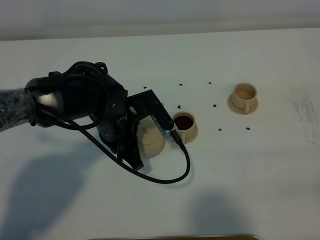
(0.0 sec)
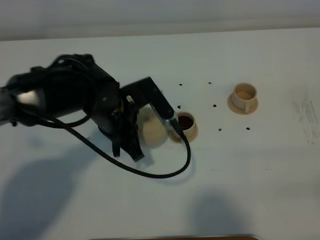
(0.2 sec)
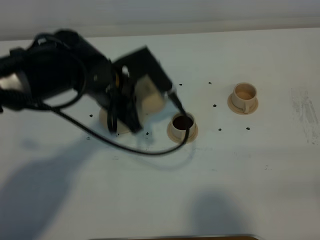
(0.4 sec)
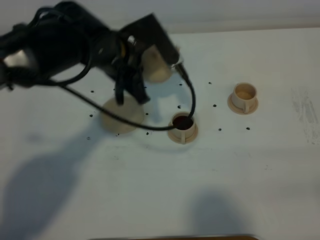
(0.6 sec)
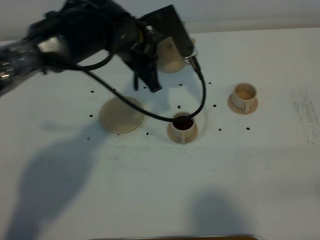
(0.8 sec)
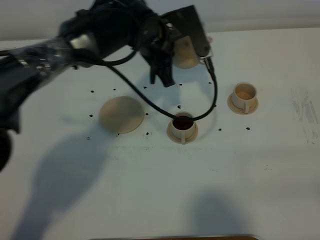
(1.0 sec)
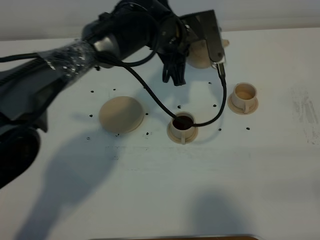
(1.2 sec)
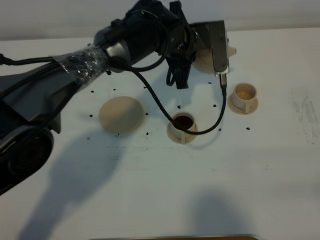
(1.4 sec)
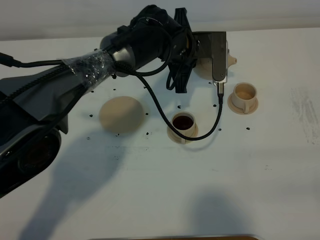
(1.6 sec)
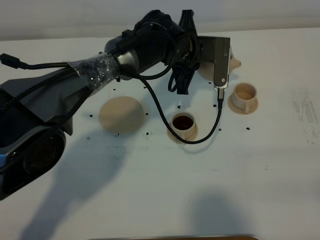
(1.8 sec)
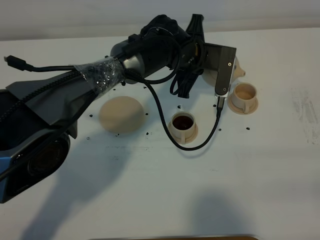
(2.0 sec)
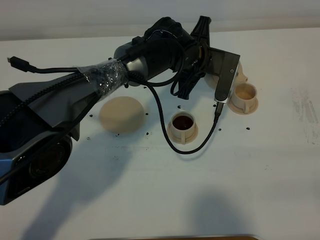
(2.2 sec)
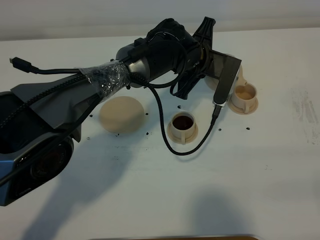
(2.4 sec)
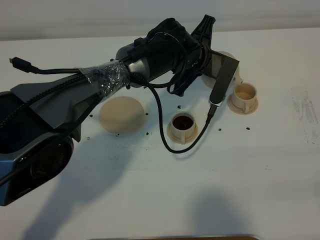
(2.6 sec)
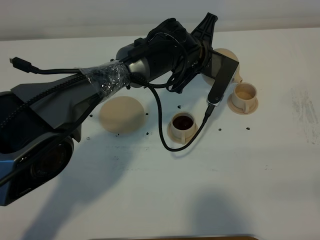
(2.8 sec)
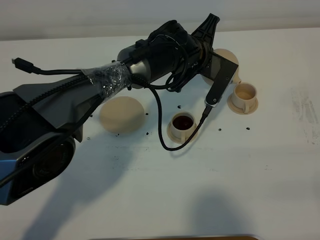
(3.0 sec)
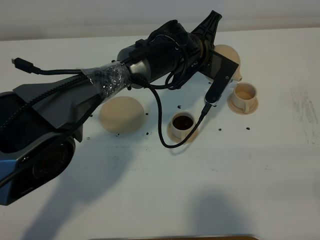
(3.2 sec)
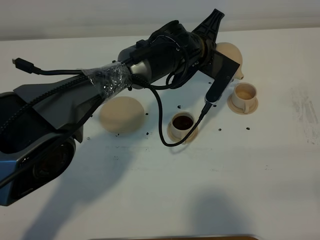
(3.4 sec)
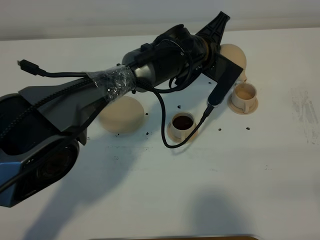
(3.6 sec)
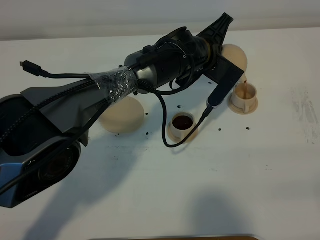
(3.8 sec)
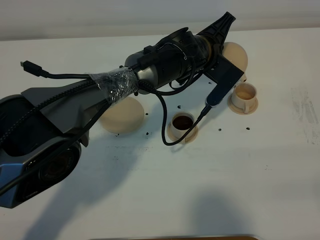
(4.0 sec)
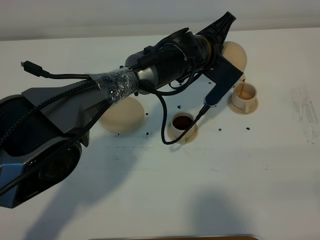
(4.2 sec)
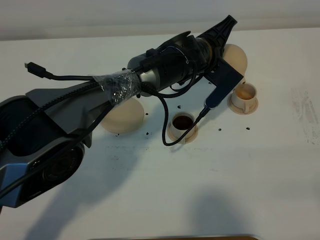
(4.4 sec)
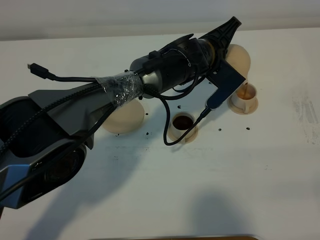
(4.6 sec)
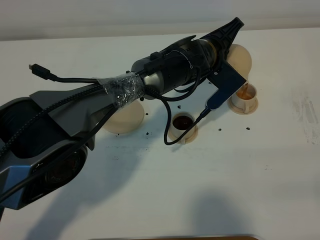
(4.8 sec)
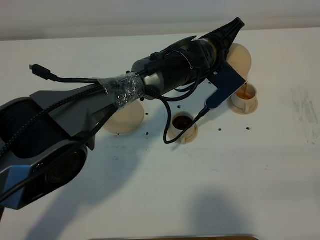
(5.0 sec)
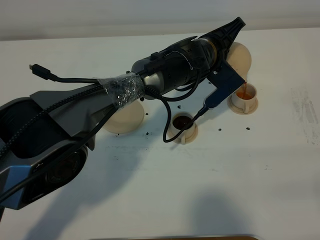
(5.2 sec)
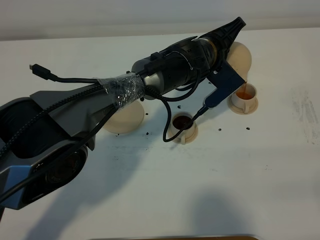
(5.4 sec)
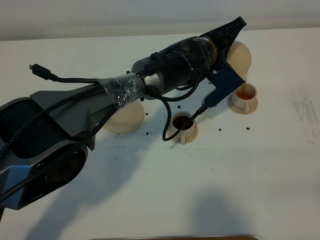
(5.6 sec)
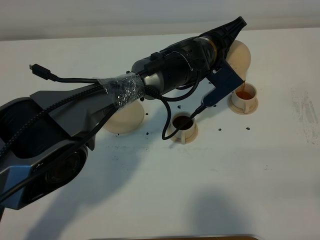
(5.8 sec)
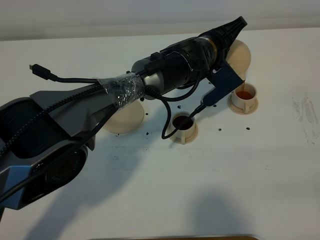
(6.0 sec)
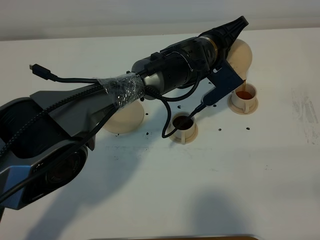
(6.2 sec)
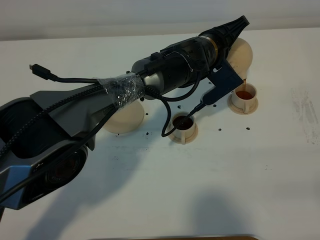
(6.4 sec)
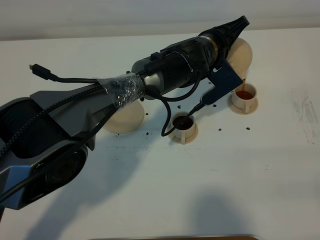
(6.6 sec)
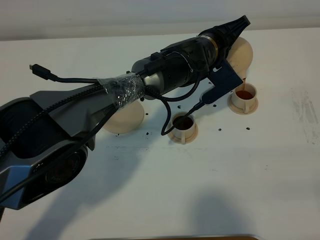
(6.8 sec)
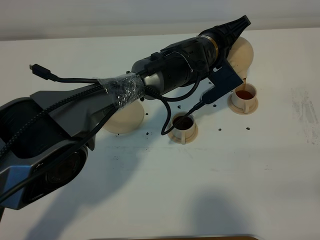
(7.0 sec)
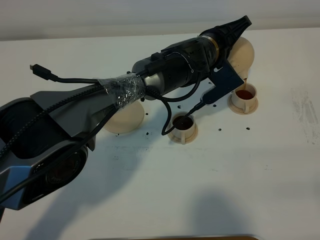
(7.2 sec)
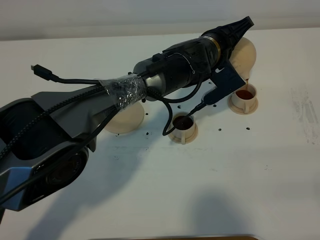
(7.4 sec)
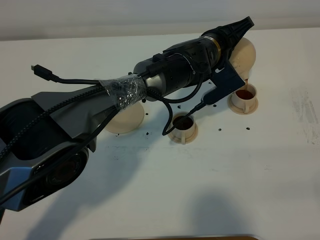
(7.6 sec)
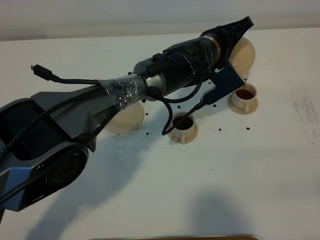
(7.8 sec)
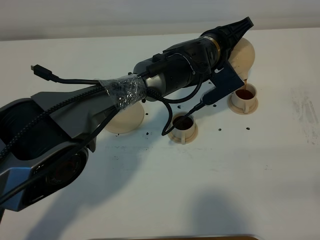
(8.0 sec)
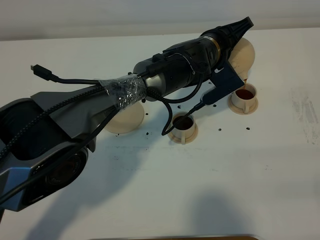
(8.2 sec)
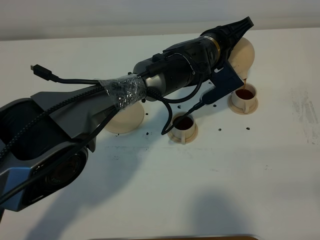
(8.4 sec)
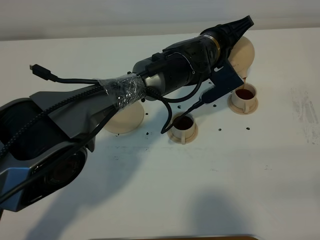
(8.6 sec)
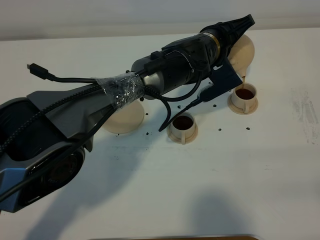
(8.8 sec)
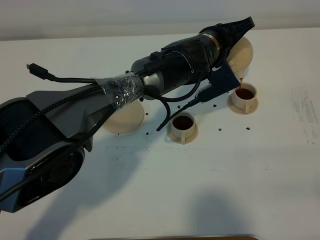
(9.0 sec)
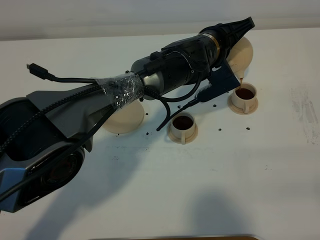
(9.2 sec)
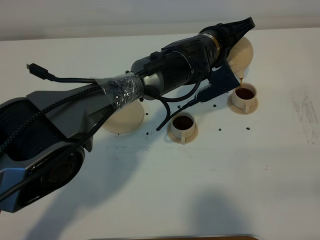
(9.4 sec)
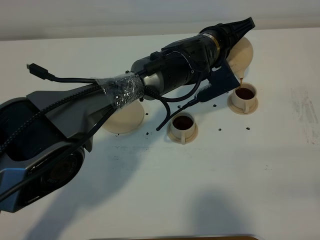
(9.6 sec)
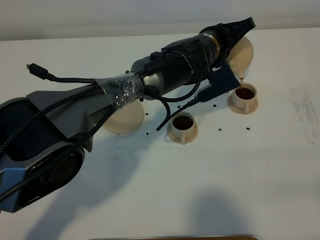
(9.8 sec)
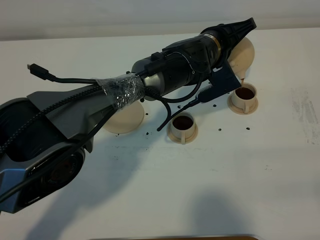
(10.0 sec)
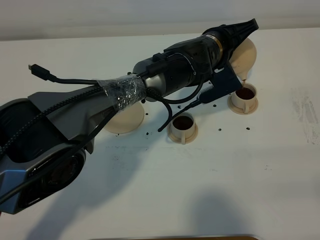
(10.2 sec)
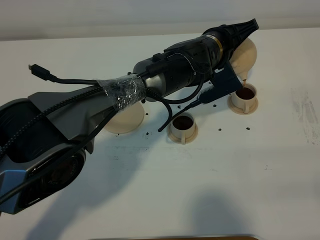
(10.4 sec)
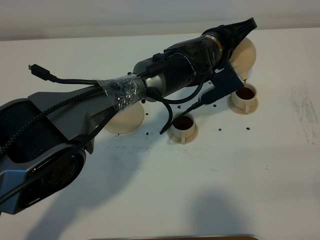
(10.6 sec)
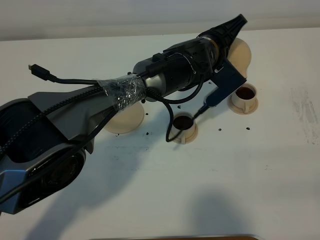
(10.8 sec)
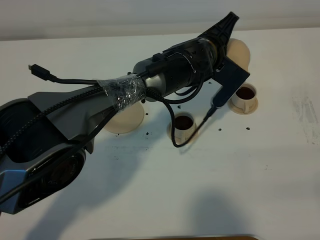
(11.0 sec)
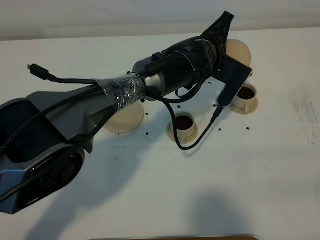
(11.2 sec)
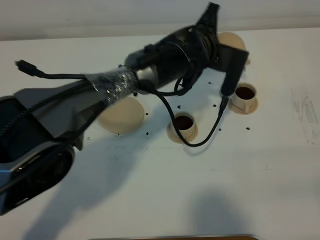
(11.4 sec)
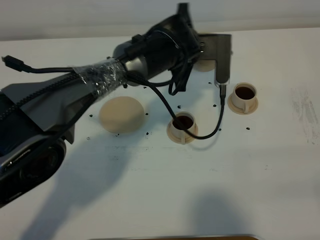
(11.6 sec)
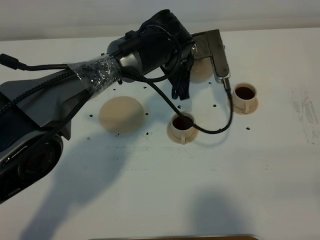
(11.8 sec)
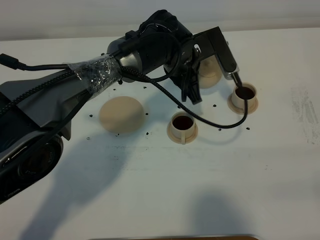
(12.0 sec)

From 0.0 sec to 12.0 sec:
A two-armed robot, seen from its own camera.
Task of the whole recording: grasp the brown teapot and pour the tea into the two brown teacups one by one, put the brown teapot back in its original place.
Step, from 0.0 sec to 11.0 sec: Pour tea into the teacup with the left gripper.
From 0.0 sec to 1.6 sec: The left gripper shifts approximately 15 cm forward and to the right.
From 3.0 sec to 4.4 sec: The grippers make only small movements.
From 4.4 sec to 7.6 sec: There are only small adjustments of the grippers.
From 7.6 sec to 9.0 sec: The grippers move only a little.
From 9.0 sec to 10.4 sec: Both grippers stay about where they are.
From 10.4 sec to 12.0 sec: The left gripper is displaced to the left by about 5 cm.

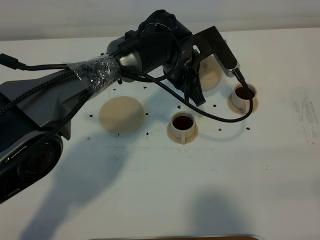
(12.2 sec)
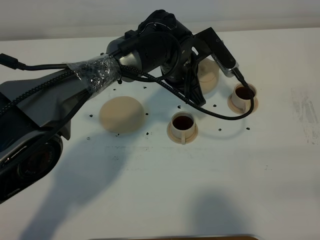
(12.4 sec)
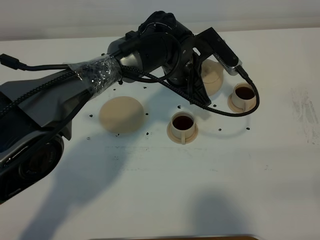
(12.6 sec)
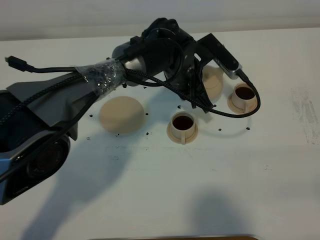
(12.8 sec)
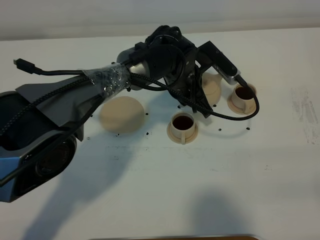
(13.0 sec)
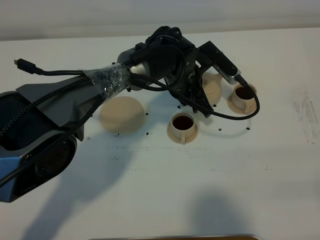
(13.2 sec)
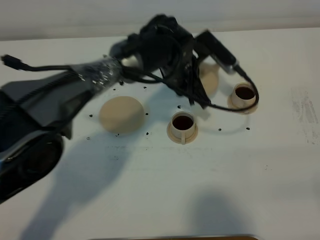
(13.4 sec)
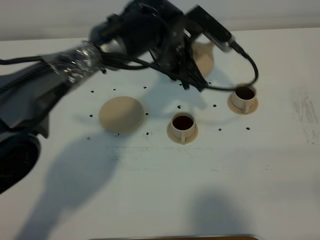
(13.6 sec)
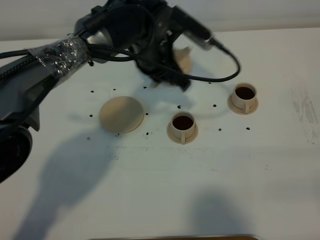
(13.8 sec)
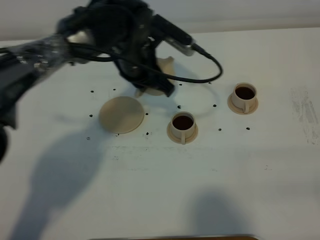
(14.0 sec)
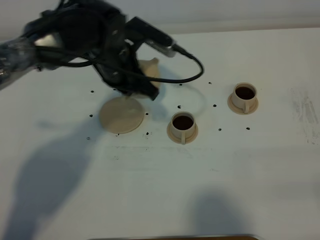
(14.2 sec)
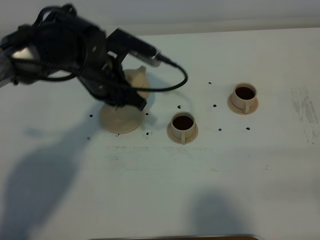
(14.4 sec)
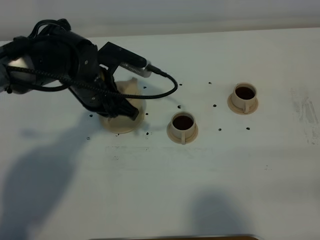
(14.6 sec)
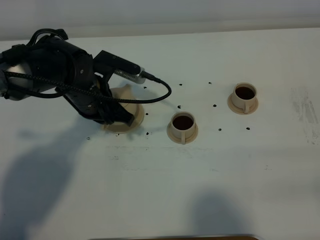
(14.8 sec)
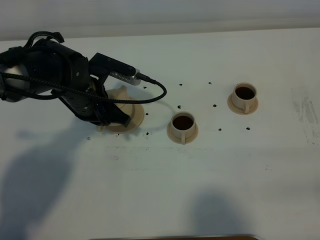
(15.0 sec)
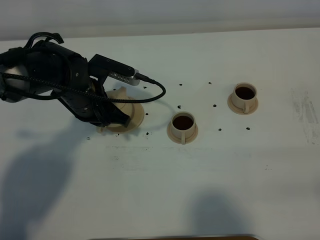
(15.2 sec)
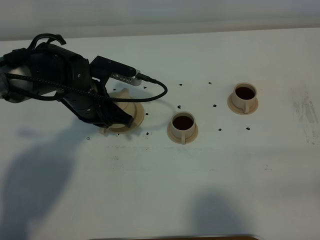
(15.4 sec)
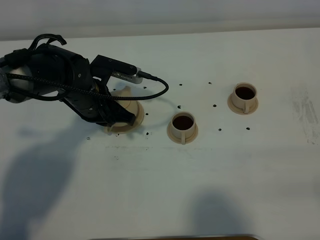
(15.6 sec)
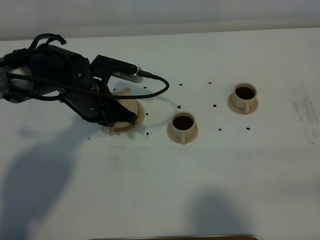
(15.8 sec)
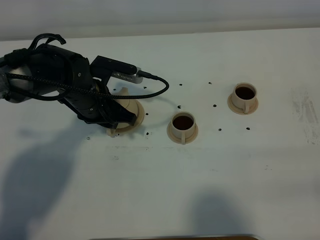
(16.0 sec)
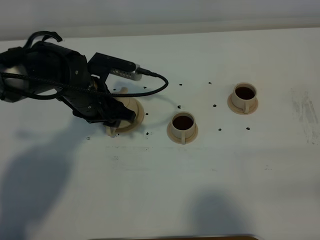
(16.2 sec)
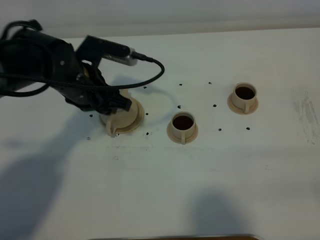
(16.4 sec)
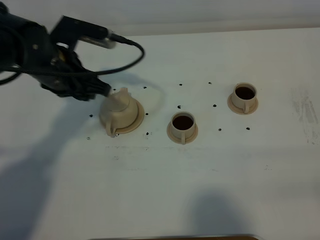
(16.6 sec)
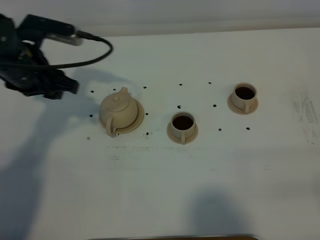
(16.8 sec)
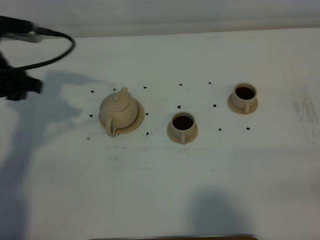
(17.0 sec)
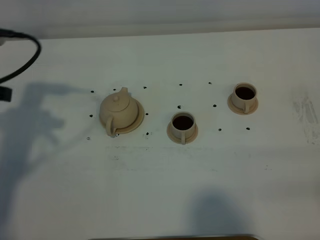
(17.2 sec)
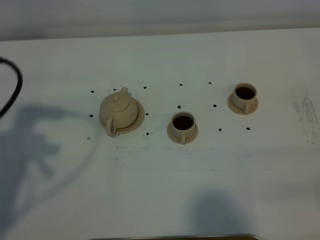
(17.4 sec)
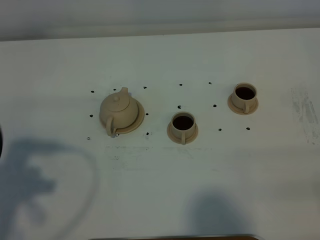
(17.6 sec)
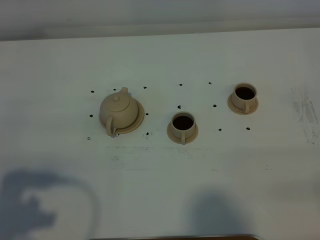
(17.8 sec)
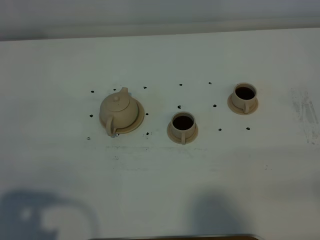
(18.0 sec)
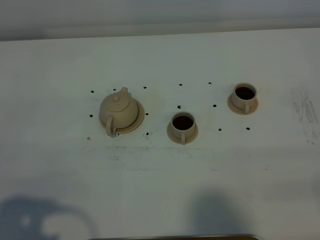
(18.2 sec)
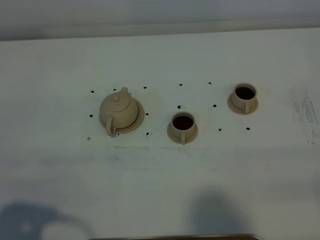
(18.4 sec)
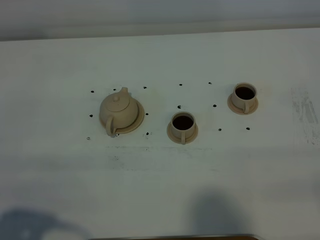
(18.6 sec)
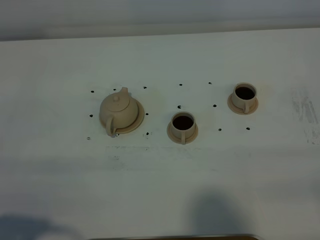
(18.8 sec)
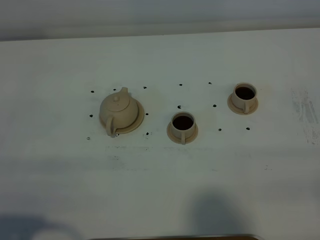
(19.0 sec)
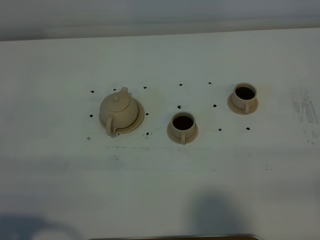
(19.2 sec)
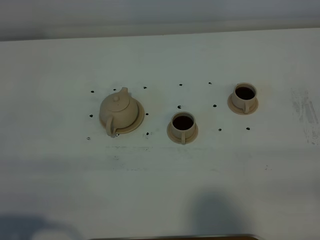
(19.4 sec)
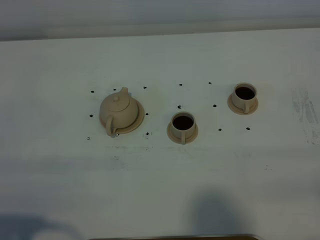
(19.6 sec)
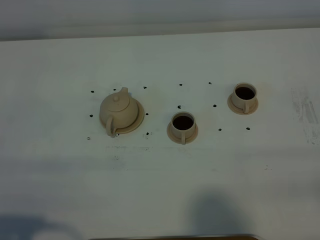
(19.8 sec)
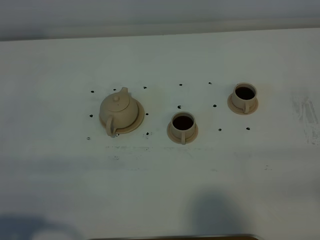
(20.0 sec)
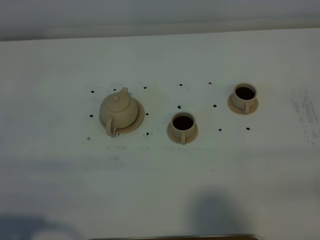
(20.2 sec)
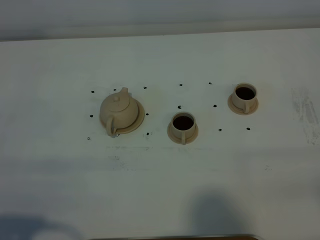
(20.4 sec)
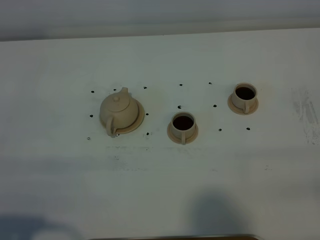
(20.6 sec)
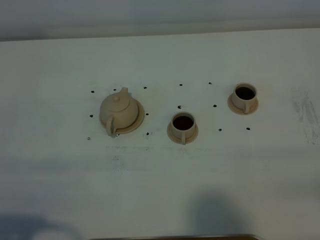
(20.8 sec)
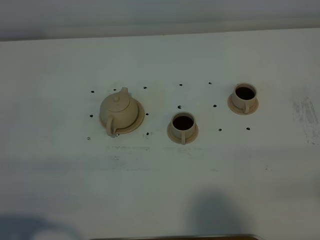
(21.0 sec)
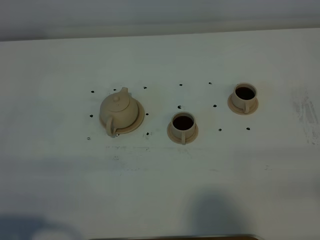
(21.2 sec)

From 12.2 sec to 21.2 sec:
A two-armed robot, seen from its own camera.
Task of the whole recording: grasp the brown teapot and pour the tea into the two brown teacups one by one, put the brown teapot back in its original place.
From 12.2 sec to 13.8 sec: The left gripper ends up approximately 5 cm from where it was.
From 13.8 sec to 15.2 sec: The left gripper moves to the left and downward, about 15 cm.
From 15.2 sec to 16.6 sec: The left gripper goes approximately 10 cm upward, and opens up.
From 16.6 sec to 18.2 sec: The left gripper is displaced backward by roughly 30 cm.
From 18.2 sec to 19.8 sec: There are only small adjustments of the grippers.
From 19.8 sec to 21.2 sec: Both grippers stay about where they are.
